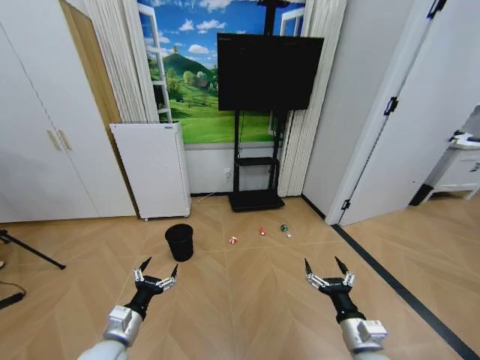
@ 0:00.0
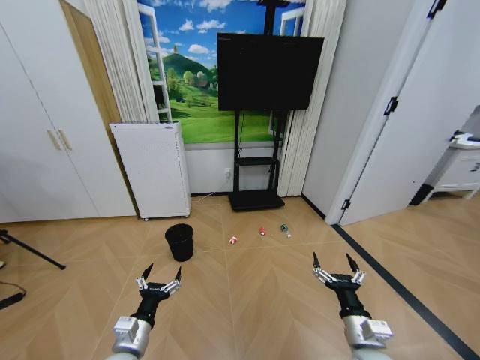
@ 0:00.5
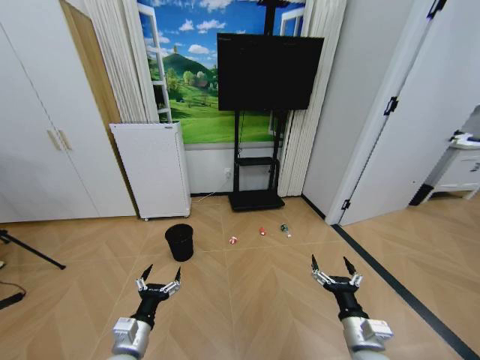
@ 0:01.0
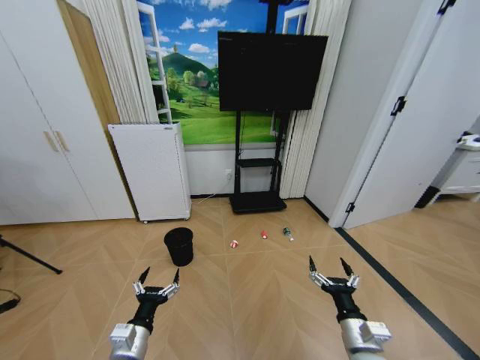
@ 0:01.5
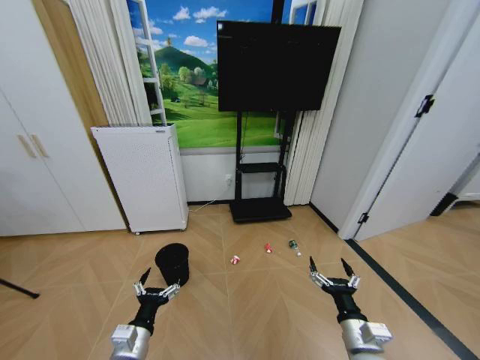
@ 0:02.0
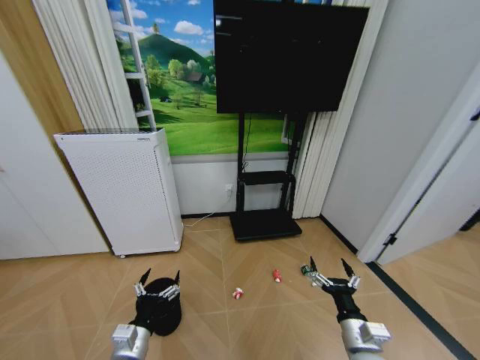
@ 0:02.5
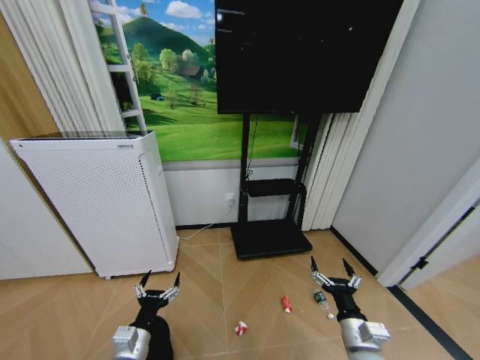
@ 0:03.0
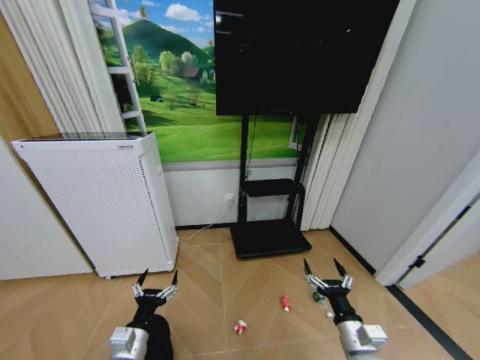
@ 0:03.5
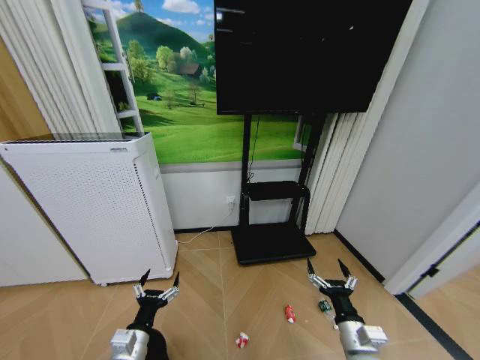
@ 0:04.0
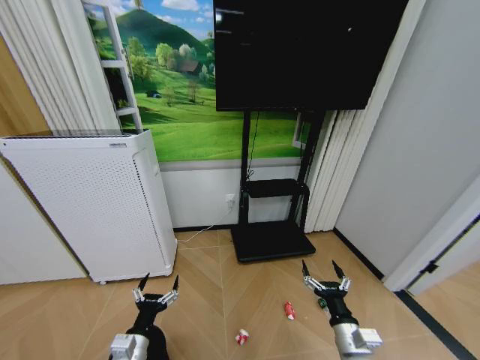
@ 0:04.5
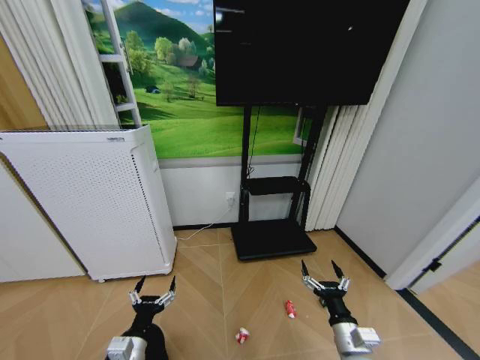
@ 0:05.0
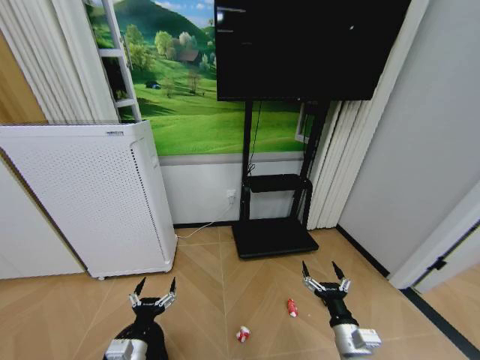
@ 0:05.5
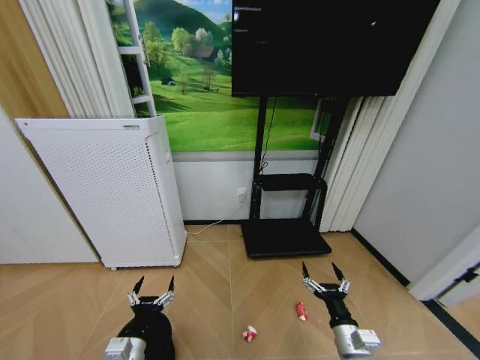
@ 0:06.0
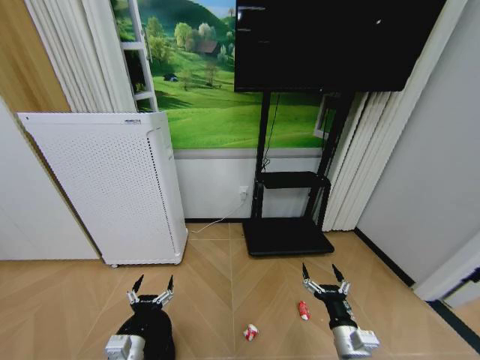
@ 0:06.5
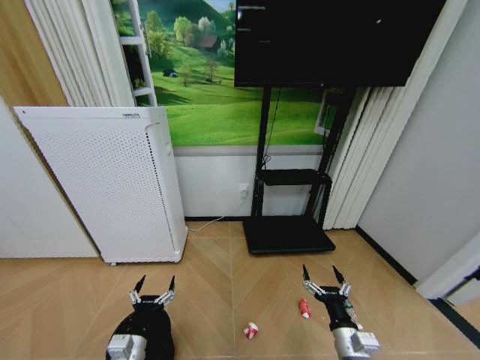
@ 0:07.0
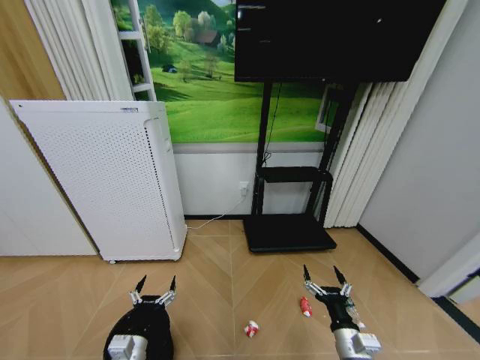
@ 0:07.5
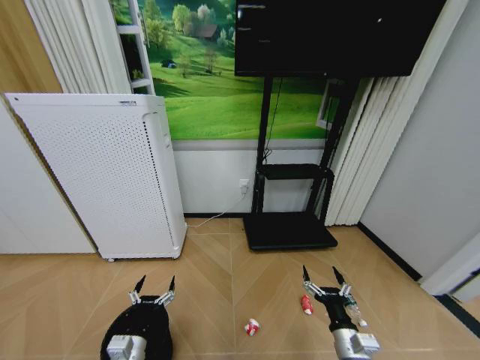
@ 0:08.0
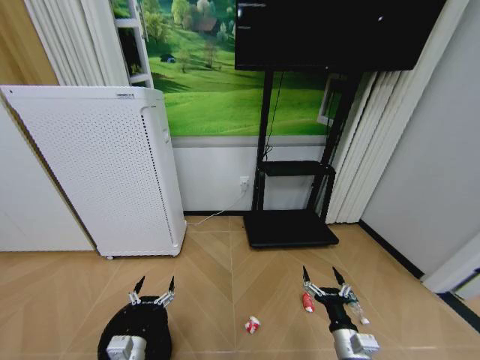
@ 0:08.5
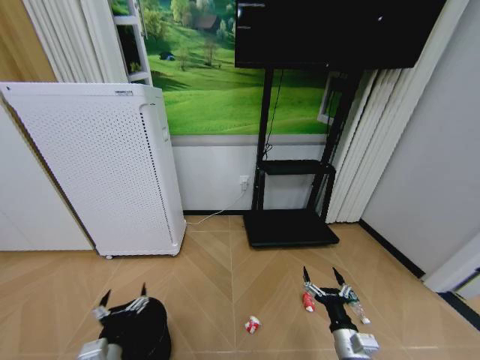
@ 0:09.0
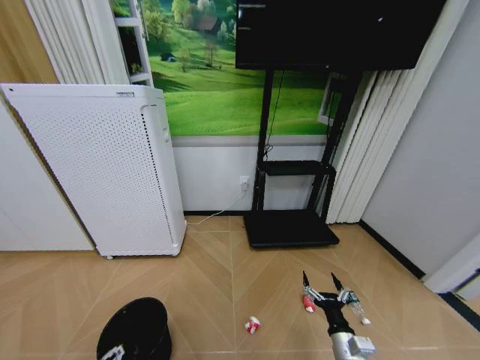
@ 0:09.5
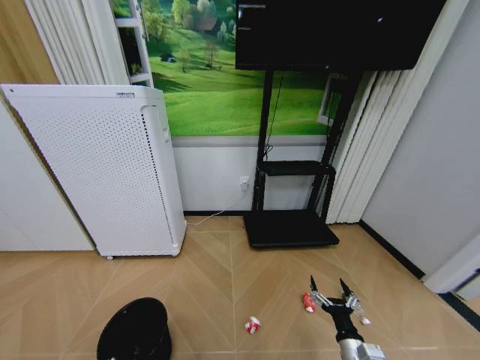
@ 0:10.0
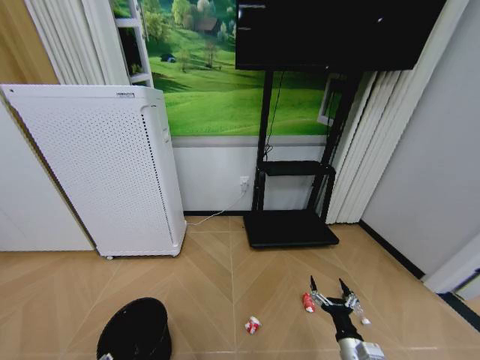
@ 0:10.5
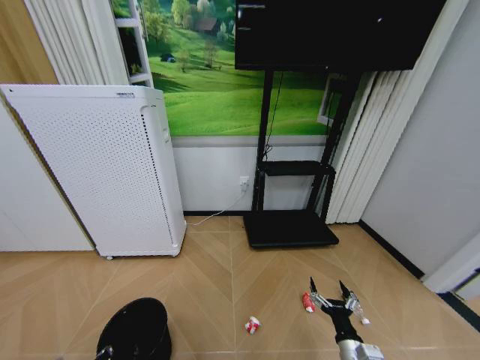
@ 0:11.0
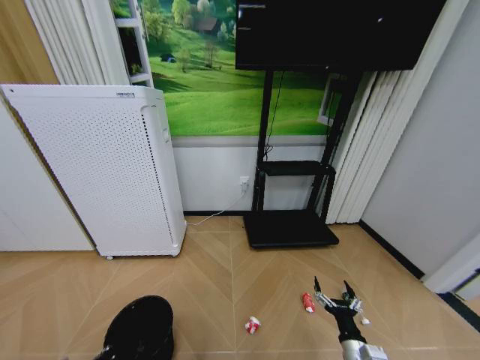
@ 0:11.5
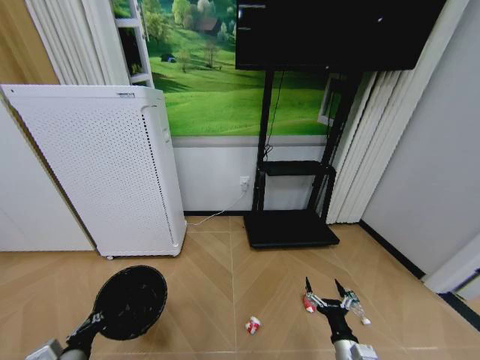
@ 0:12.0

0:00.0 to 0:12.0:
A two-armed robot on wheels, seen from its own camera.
Task of the whole recording: Pick up the trash bin and place the garbage on the floor into it.
0:08.0 to 0:10.0: The right gripper shifts by about 5 cm, while the left gripper travels backward, to the left and upward by roughly 15 cm.
0:10.0 to 0:12.0: The left gripper travels forward by about 5 cm, and closes up.

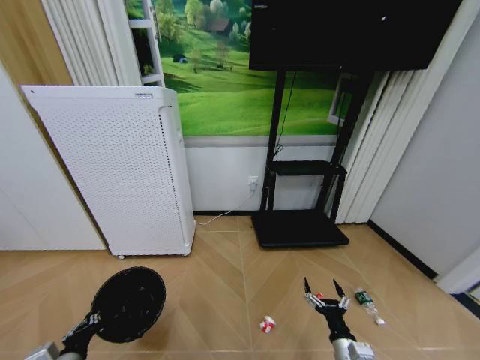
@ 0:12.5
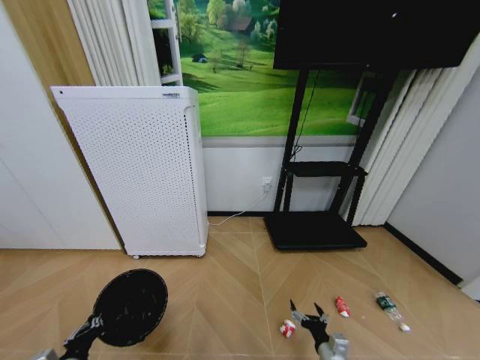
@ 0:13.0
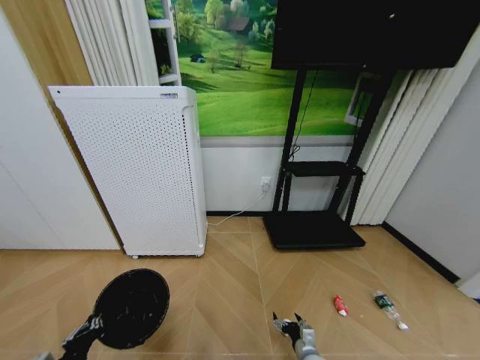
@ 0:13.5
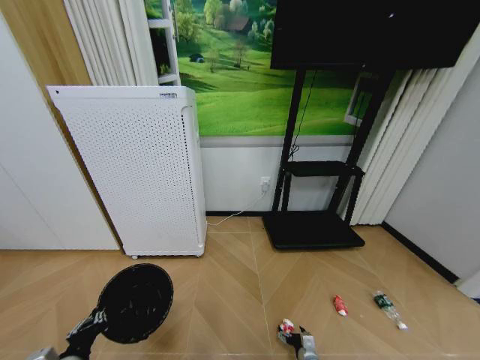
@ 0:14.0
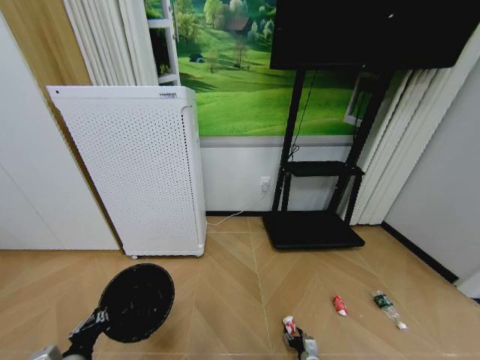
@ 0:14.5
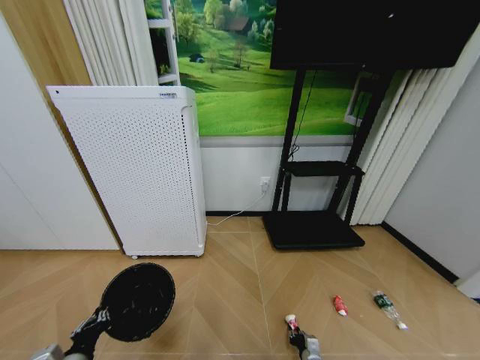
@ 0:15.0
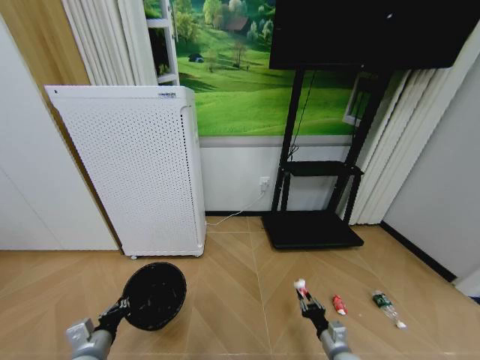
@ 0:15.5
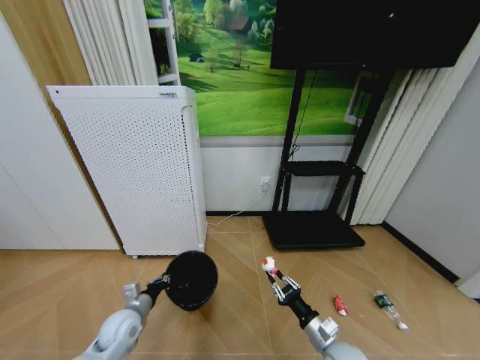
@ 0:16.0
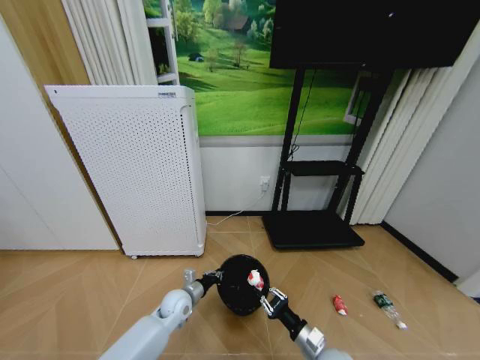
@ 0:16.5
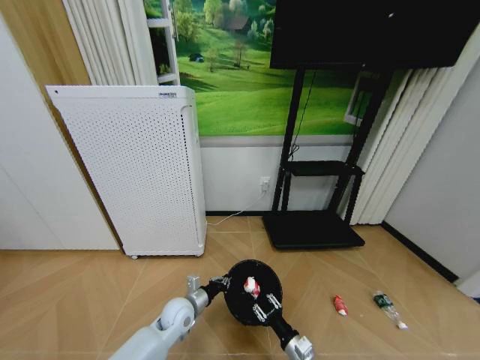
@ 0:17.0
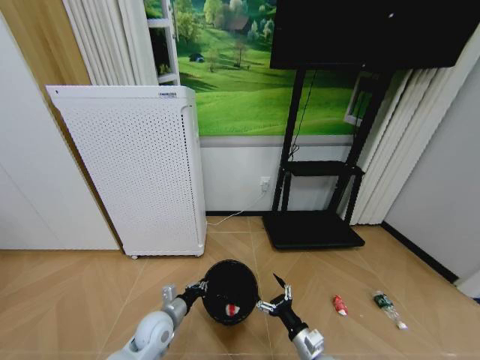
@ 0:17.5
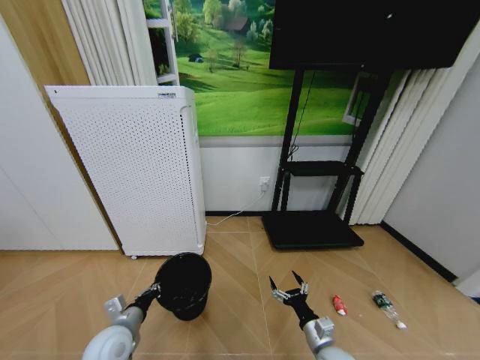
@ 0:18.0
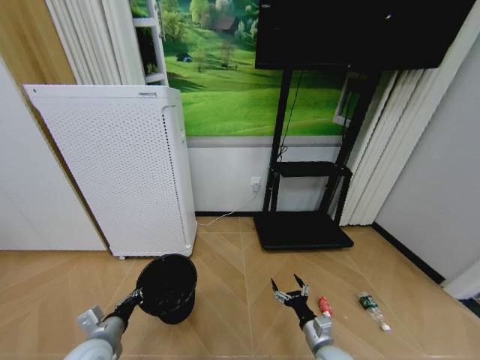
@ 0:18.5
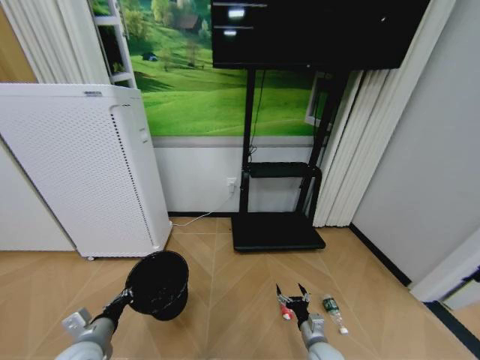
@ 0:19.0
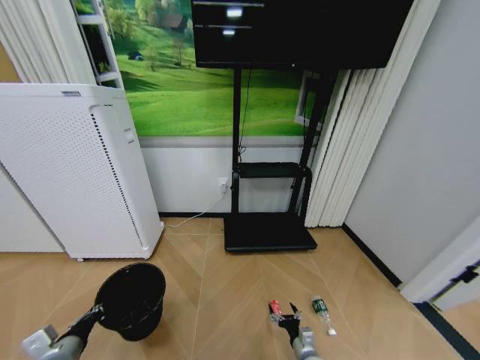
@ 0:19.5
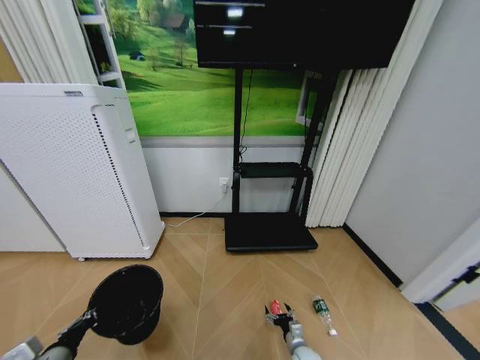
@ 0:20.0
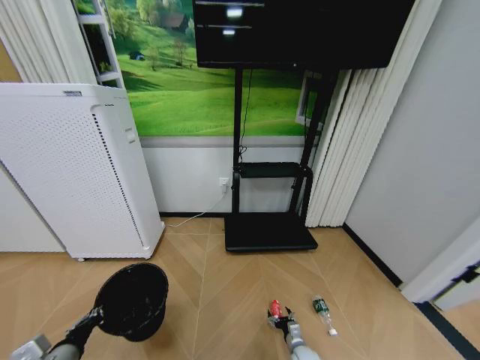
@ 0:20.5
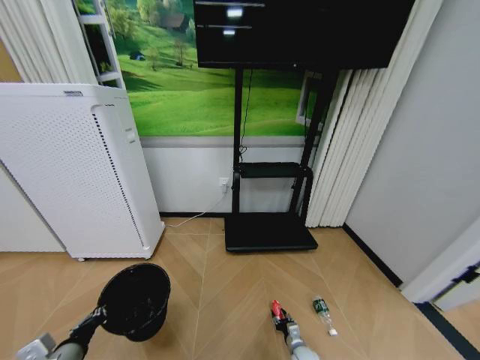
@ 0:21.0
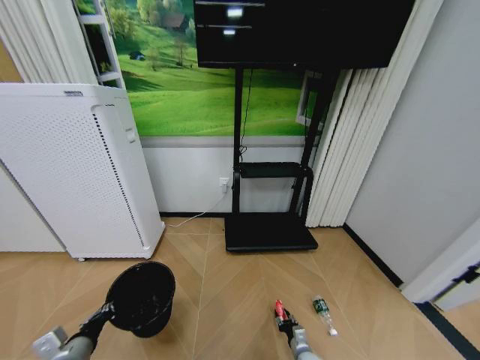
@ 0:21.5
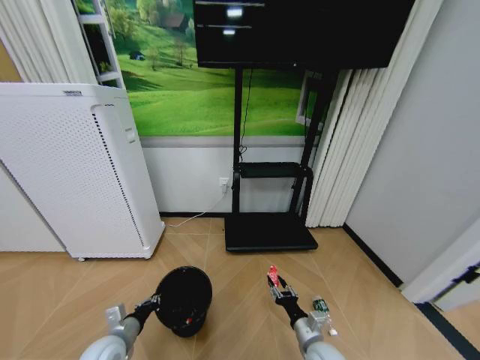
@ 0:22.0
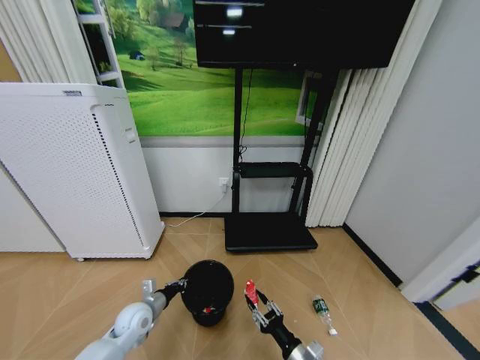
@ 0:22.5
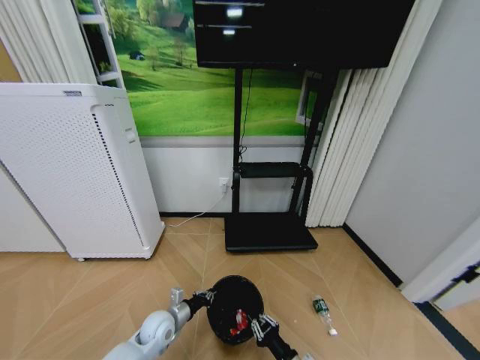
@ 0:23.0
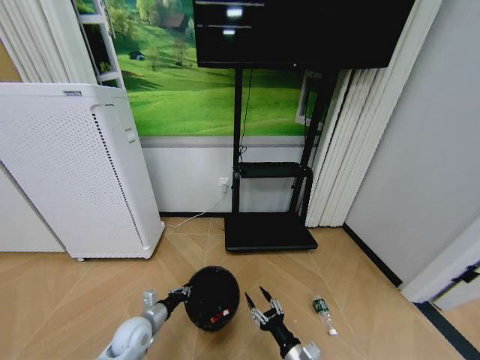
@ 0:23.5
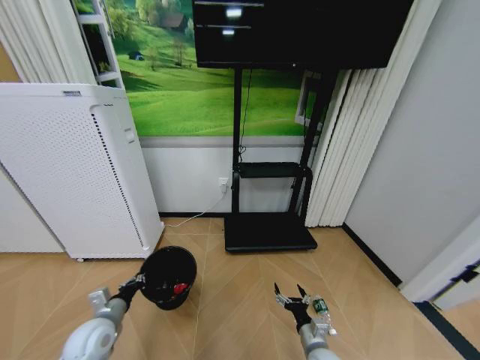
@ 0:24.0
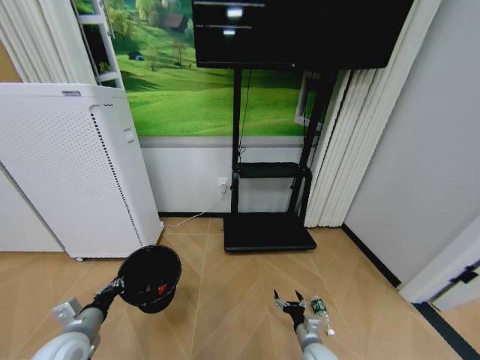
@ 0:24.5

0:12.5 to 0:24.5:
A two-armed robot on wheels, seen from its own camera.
Task of the whole recording: Pick up the trash bin and place the garbage on the floor into it.
0:12.5 to 0:14.5: The right gripper shifts approximately 20 cm downward, and closes up.
0:14.5 to 0:16.5: The left gripper heads forward, to the right and downward, covering about 30 cm. Meanwhile the right gripper shifts some 20 cm upward, and closes up.
0:16.5 to 0:18.5: The left gripper travels to the left, backward and upward by roughly 25 cm. The right gripper opens its fingers.
0:18.5 to 0:20.5: The right gripper moves downward, about 20 cm. The left gripper travels backward by roughly 5 cm.
0:20.5 to 0:22.5: The right gripper travels upward and backward by about 25 cm, and closes up. The left gripper travels forward, downward and to the right by some 20 cm.
0:22.5 to 0:24.5: The right gripper moves downward and forward, roughly 10 cm, and opens its fingers, while the left gripper heads backward, to the left and upward, covering approximately 15 cm.

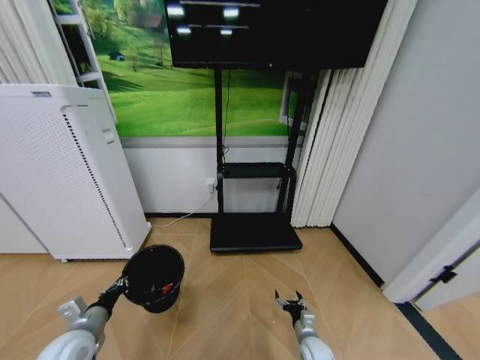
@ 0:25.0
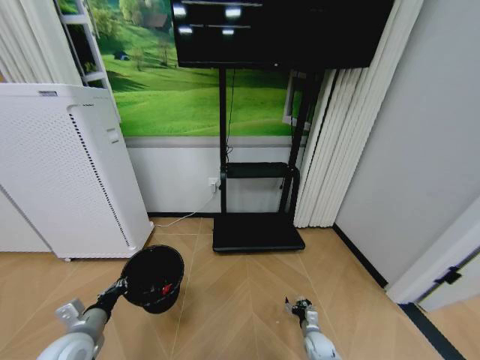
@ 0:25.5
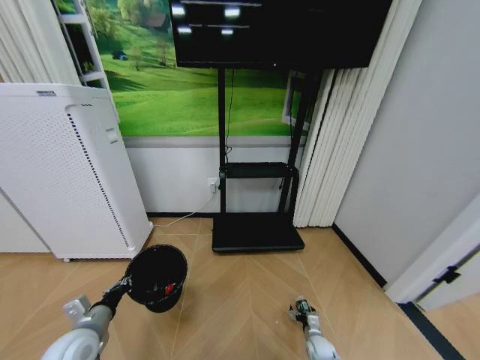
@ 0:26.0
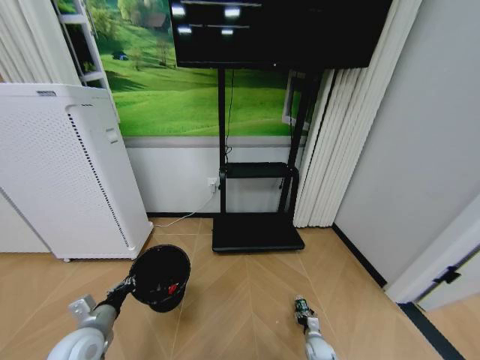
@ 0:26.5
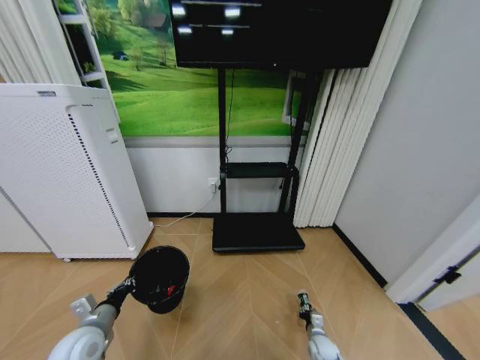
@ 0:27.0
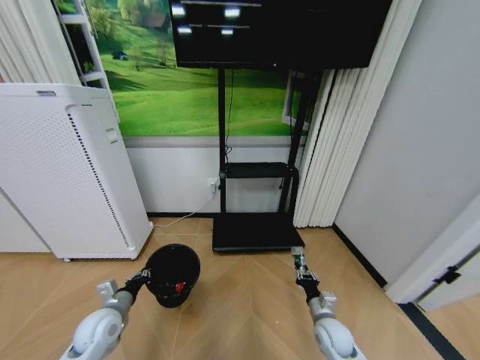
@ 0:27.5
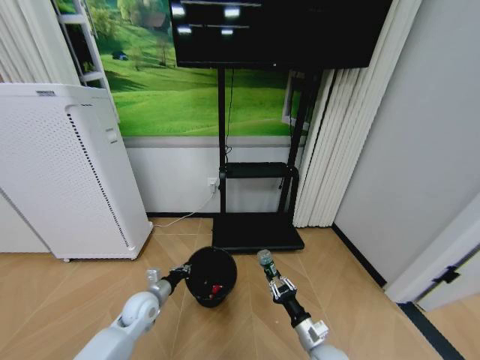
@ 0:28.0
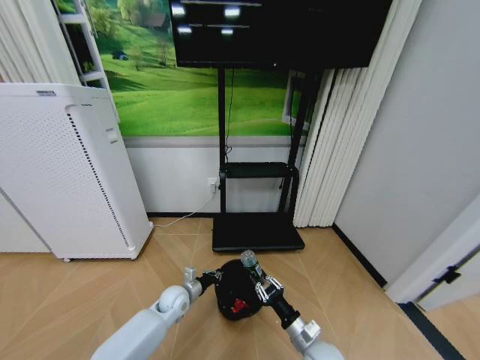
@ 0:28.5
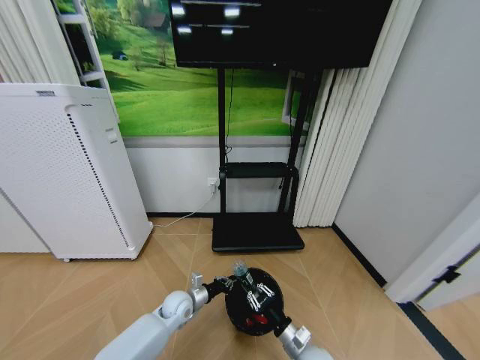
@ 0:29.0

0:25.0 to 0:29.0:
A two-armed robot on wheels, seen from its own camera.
Task of the whole recording: Pick up the trash bin and place the garbage on the floor into it.
0:25.0 to 0:27.0: The right gripper goes some 10 cm to the right and downward, and closes.
0:27.0 to 0:29.0: The left gripper goes approximately 25 cm to the right, forward and downward. Meanwhile the right gripper shifts about 20 cm upward and to the left.
